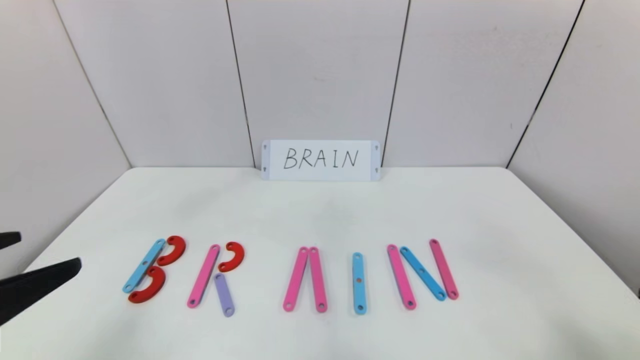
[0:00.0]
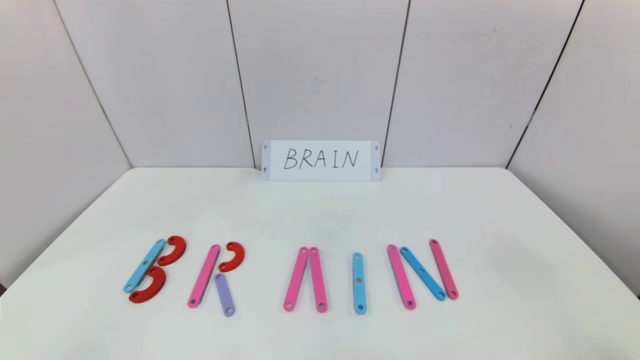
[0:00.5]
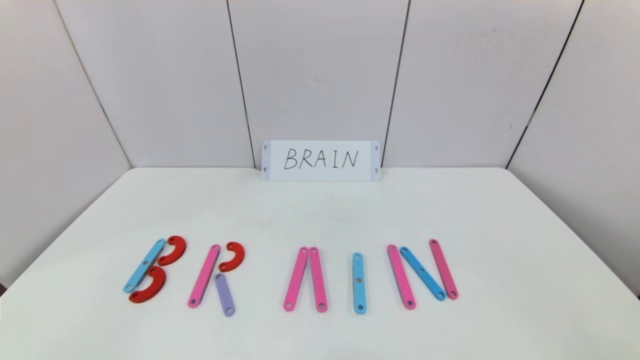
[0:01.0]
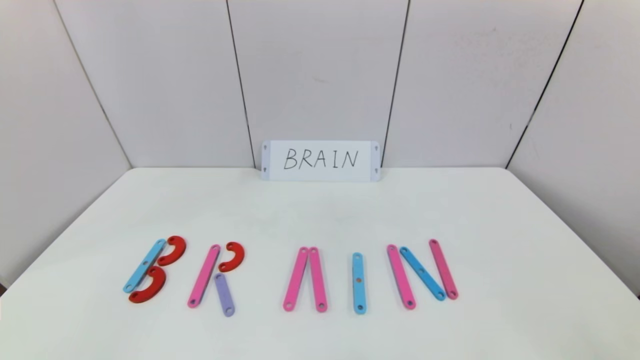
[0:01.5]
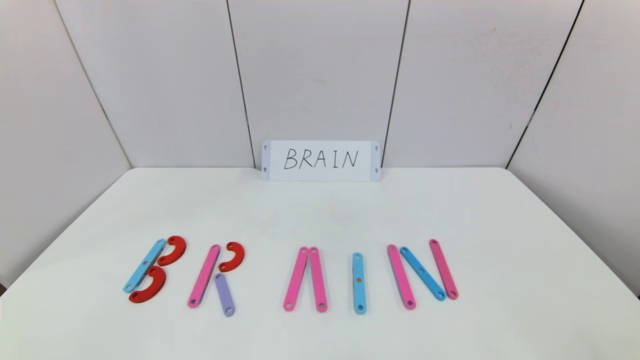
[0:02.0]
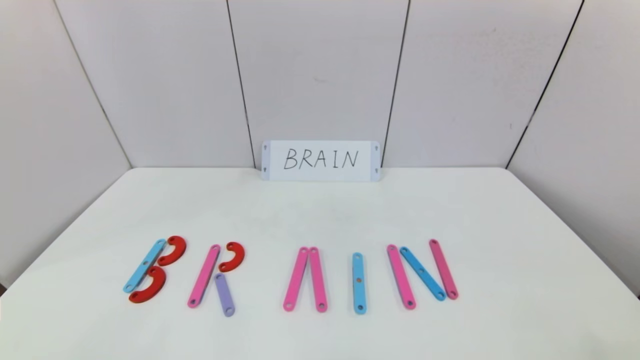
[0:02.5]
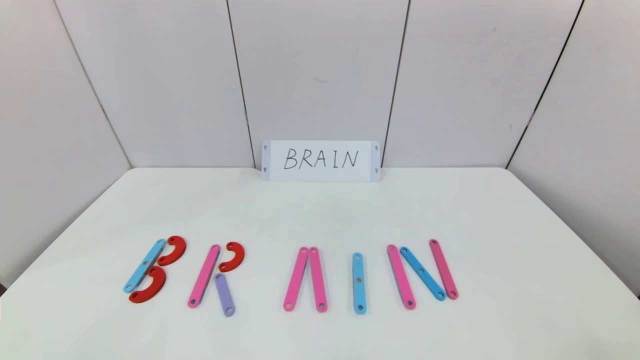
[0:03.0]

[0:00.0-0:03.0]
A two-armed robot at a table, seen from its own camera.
Task of the whole recording: rearrange the word baai as brain.
0:00.0 to 0:01.5: The left gripper moves backward and downward, roughly 10 cm.

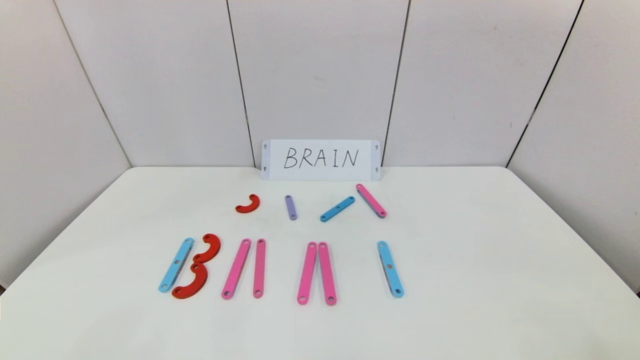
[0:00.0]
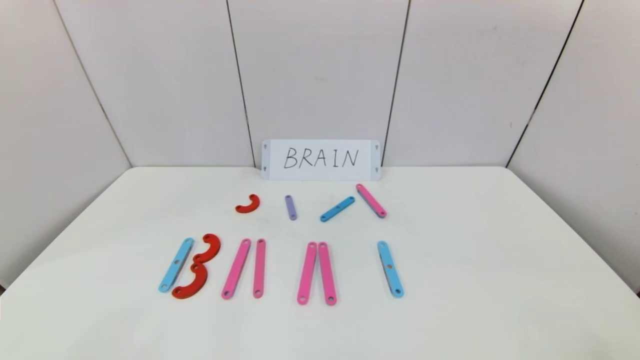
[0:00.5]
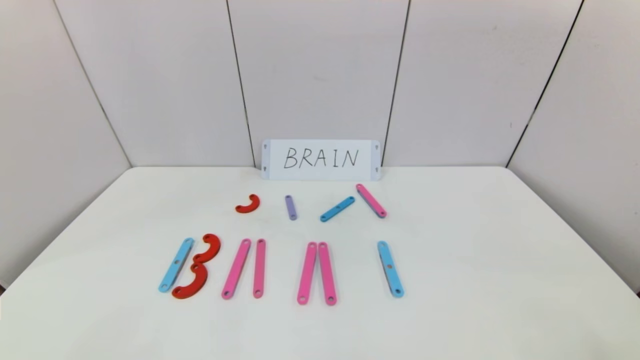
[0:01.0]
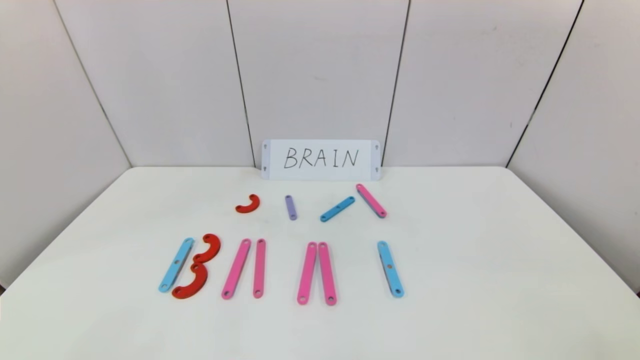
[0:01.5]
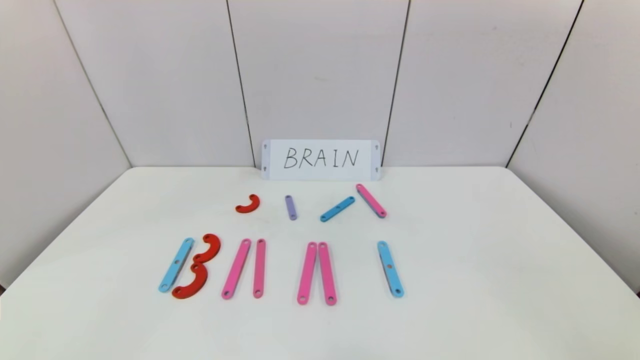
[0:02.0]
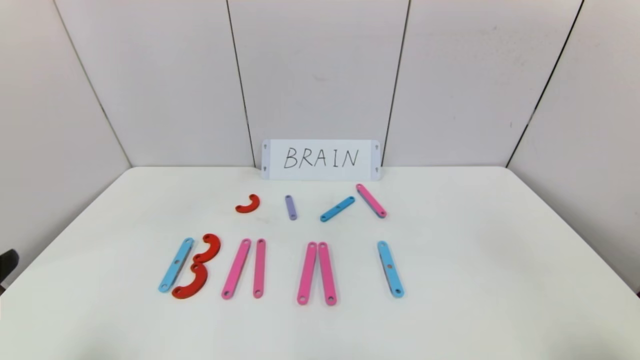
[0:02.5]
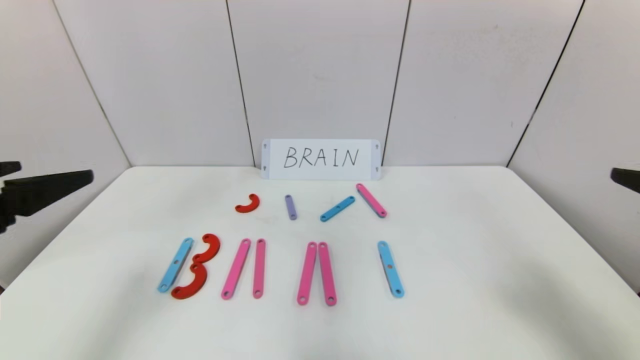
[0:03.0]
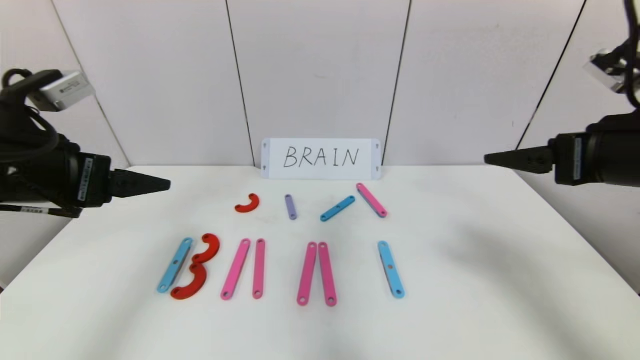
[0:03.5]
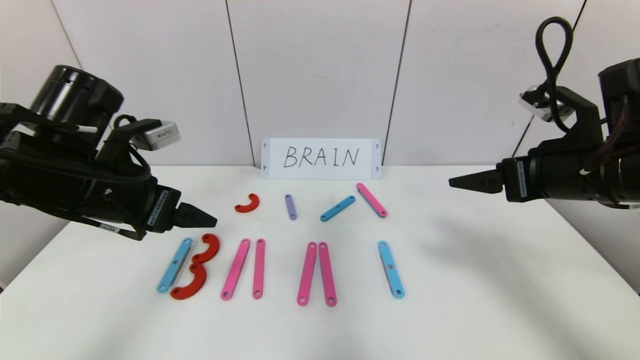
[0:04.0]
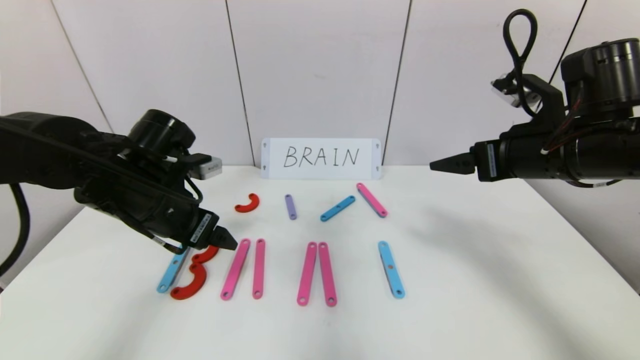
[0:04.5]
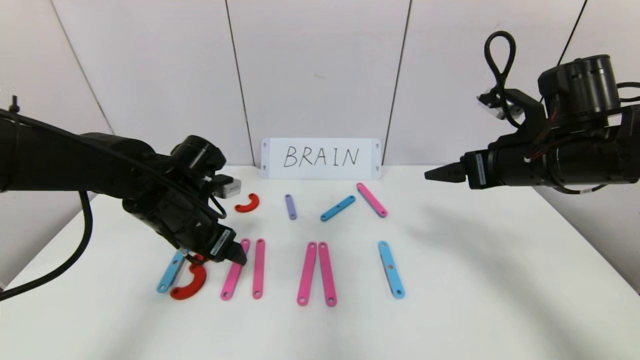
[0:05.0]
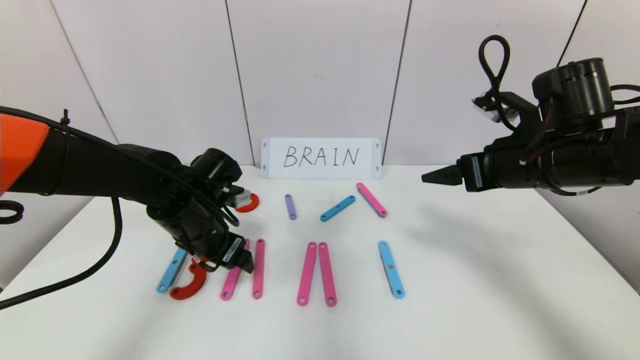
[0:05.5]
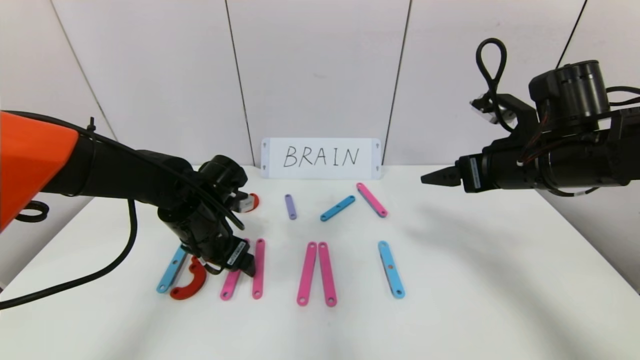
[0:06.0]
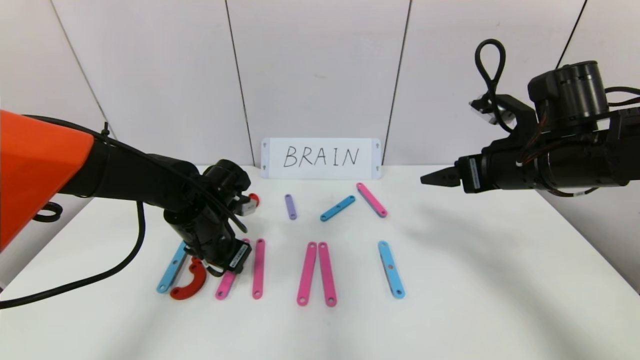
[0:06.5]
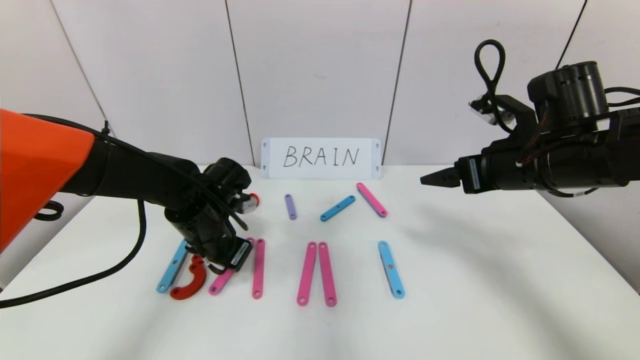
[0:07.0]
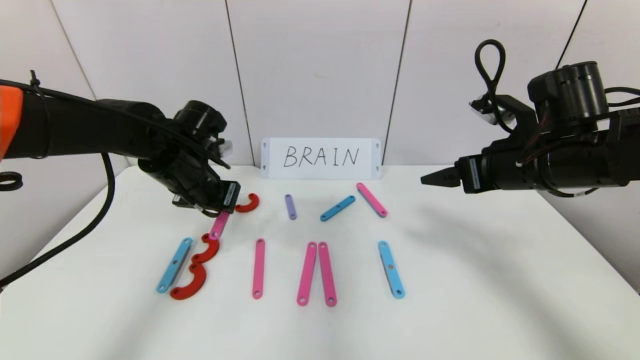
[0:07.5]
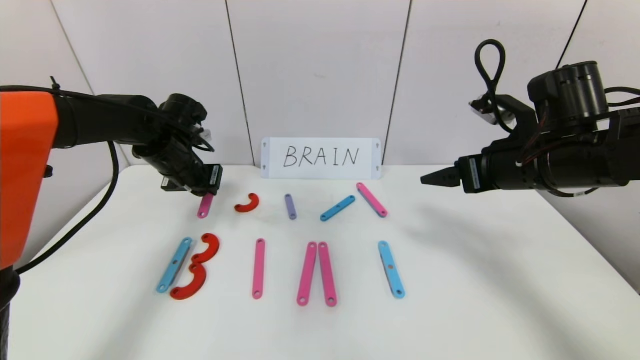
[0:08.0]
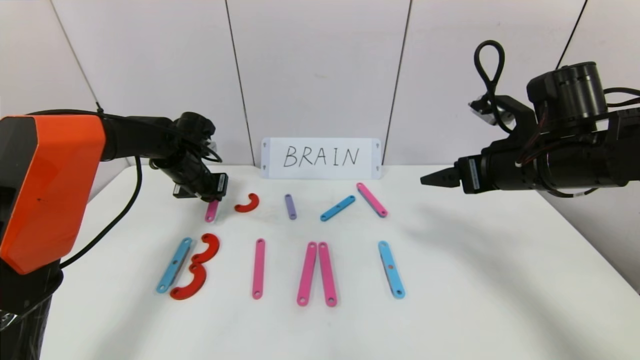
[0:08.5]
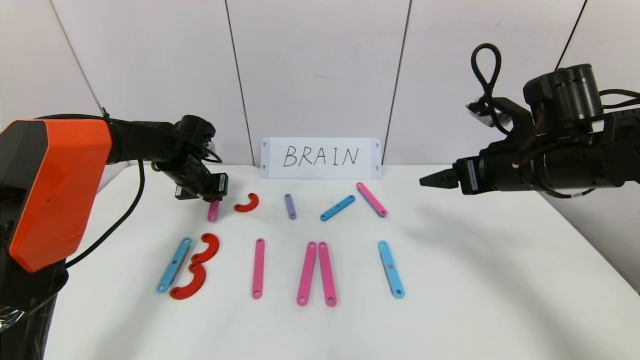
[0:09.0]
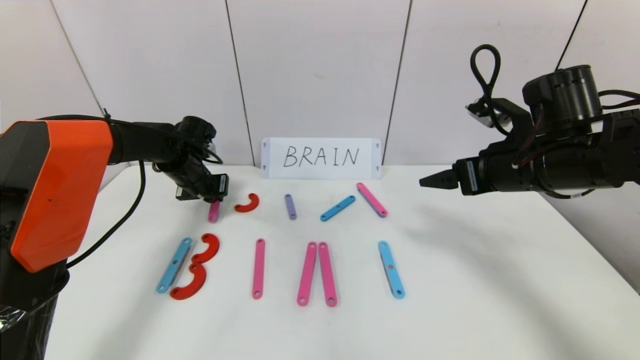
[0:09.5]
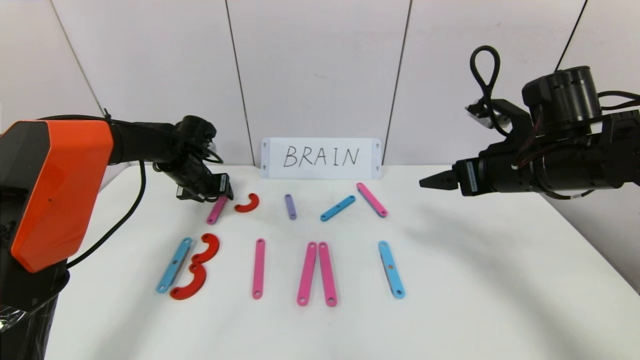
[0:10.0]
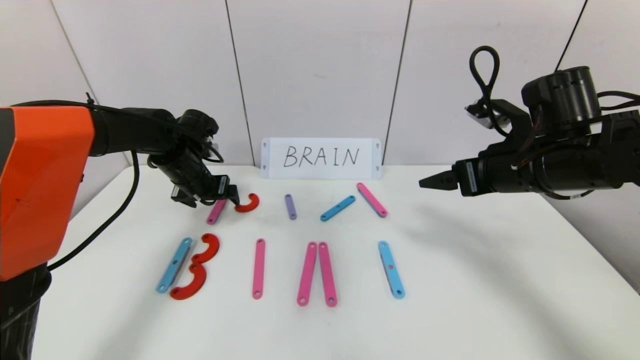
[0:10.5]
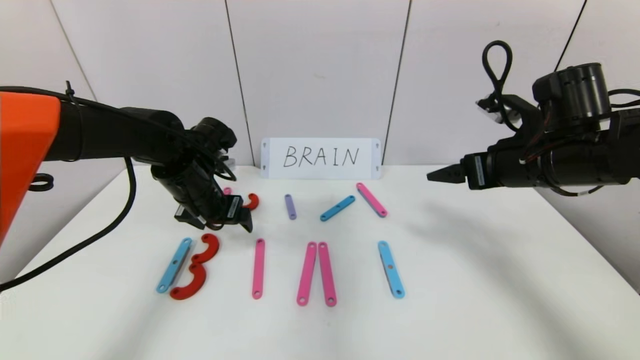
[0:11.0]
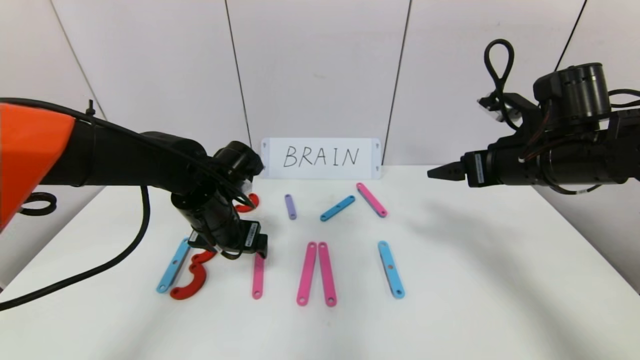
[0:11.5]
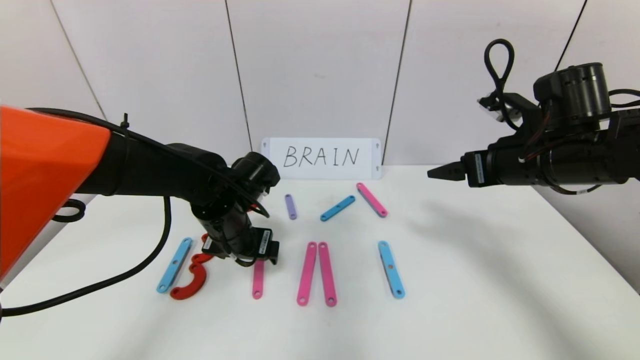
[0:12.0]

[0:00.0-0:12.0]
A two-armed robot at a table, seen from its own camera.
Task of the whole recording: rearrange the word baai as brain.
0:02.0 to 0:04.0: Both grippers travel together forward, roughly 30 cm.
0:04.0 to 0:06.0: The left gripper is displaced downward, forward and to the right by approximately 15 cm. Meanwhile the right gripper moves roughly 5 cm.
0:06.0 to 0:08.0: The left gripper is displaced forward, to the left and upward by roughly 15 cm, and closes.
0:08.0 to 0:10.0: The left gripper changes place by approximately 5 cm, and opens its fingers.
0:10.0 to 0:12.0: The left gripper heads backward and to the right, covering some 20 cm.

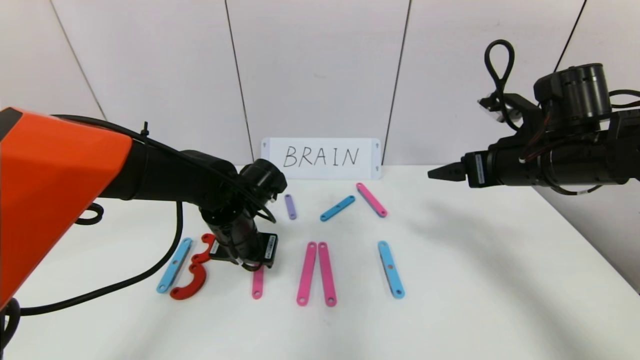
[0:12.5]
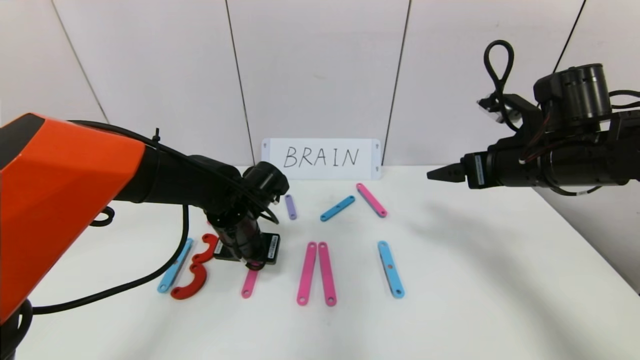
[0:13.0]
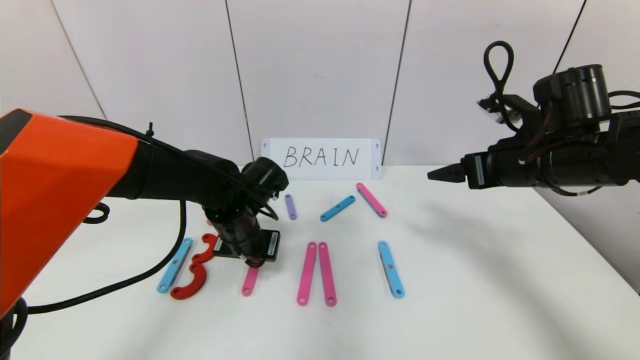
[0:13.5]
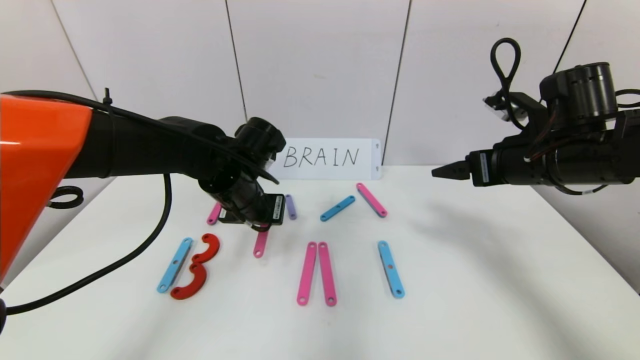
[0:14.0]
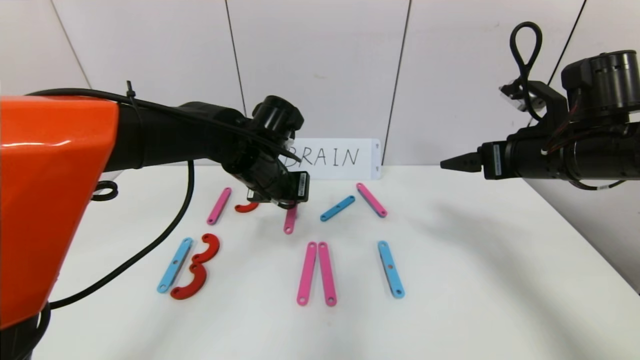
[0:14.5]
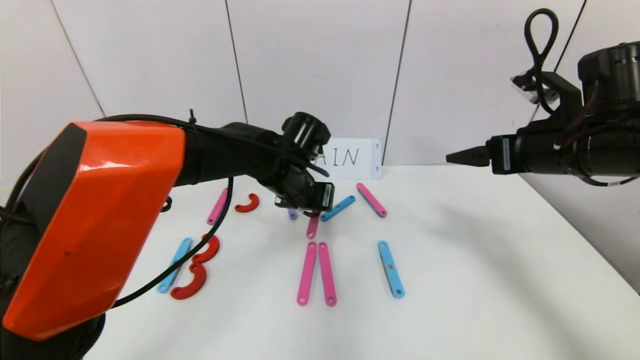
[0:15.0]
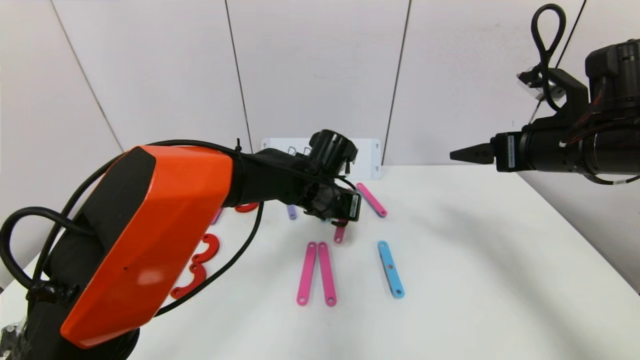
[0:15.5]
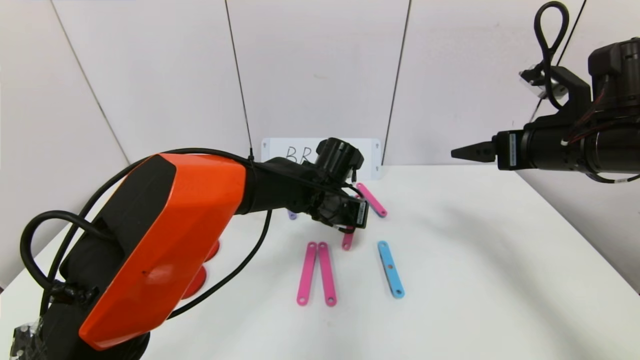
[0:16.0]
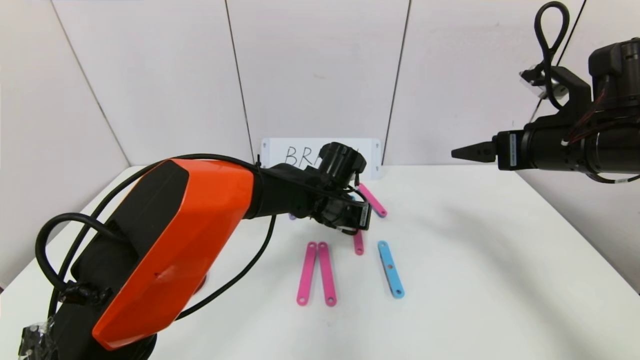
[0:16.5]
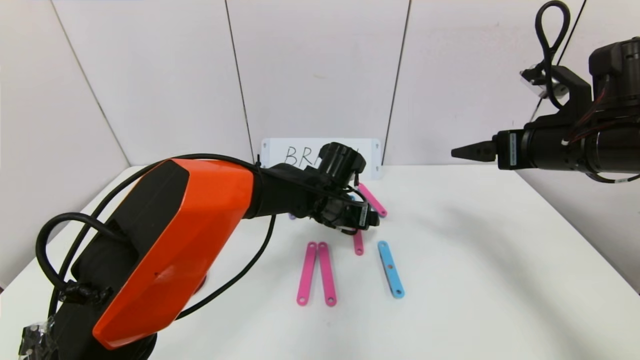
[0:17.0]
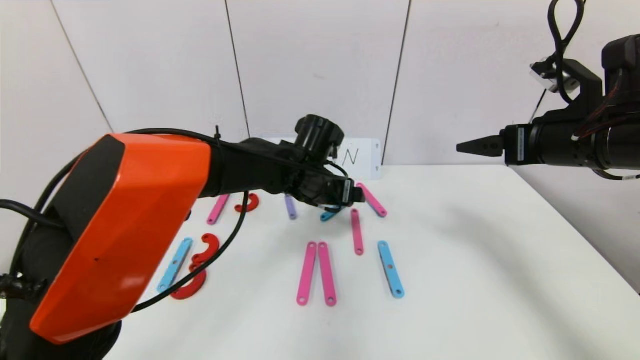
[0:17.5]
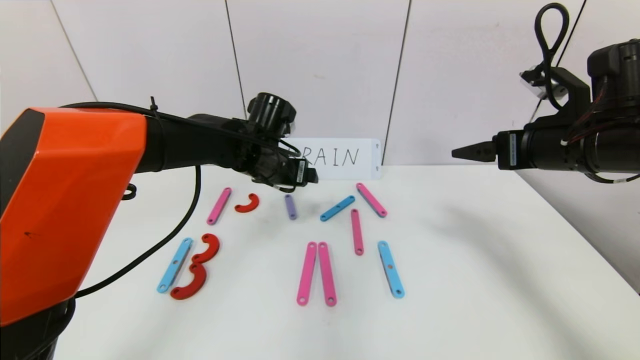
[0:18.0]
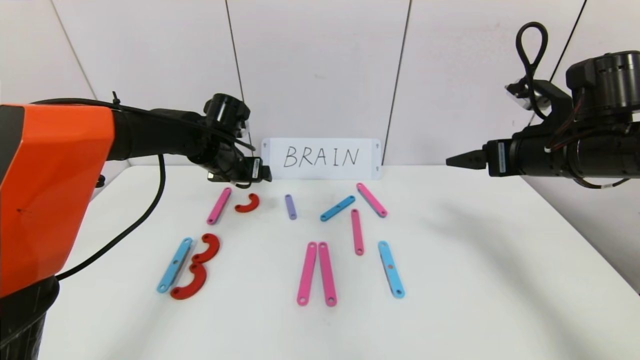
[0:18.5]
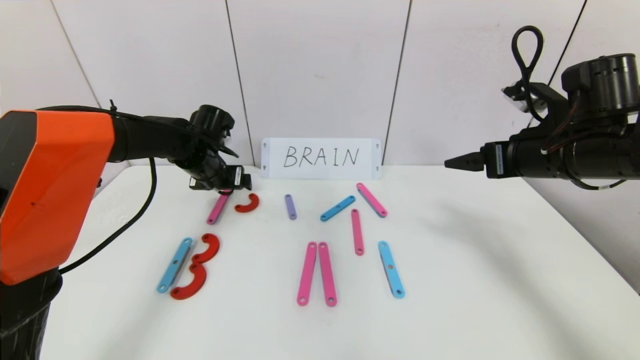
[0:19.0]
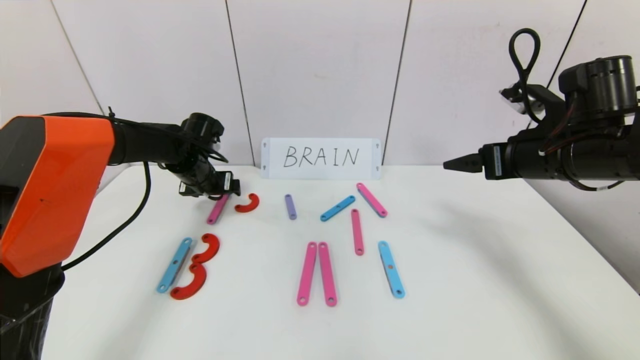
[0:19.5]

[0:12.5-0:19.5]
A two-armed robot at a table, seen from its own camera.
Task of the whole recording: rearrange the word baai as brain.
Step, 0:12.5 to 0:17.5: Disassemble the second character A.
0:12.5 to 0:14.5: The left gripper travels upward by approximately 5 cm, and closes its fingers.
0:14.5 to 0:16.0: The left gripper heads to the right and downward, covering approximately 10 cm.
0:16.0 to 0:17.5: The left gripper opens up.
0:17.5 to 0:19.5: The left gripper shifts some 20 cm to the left.
